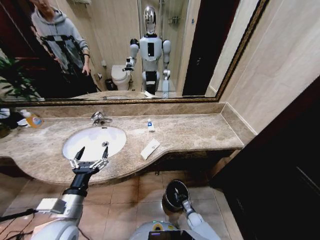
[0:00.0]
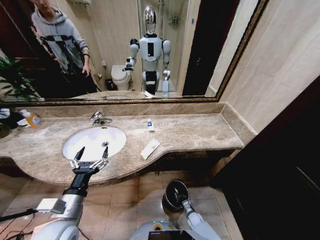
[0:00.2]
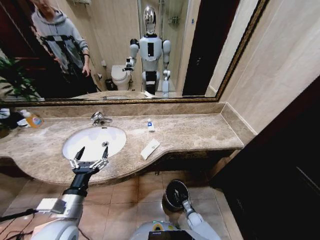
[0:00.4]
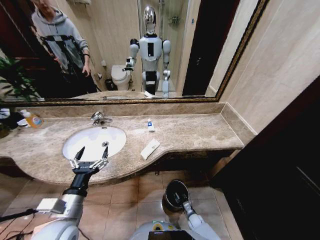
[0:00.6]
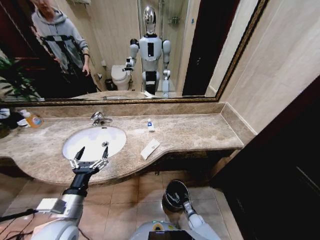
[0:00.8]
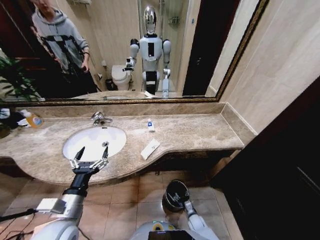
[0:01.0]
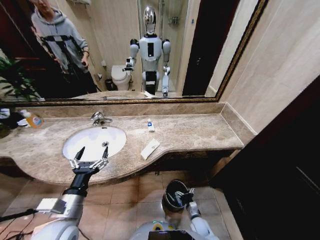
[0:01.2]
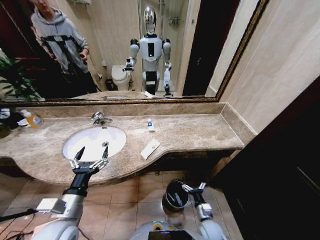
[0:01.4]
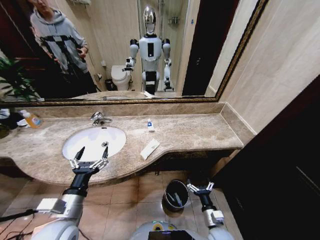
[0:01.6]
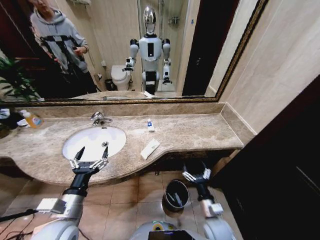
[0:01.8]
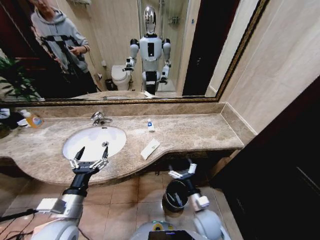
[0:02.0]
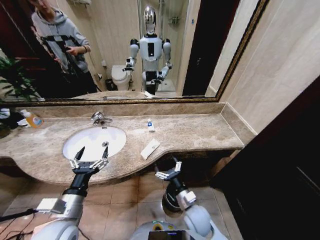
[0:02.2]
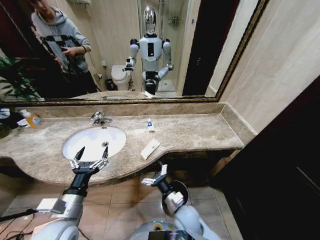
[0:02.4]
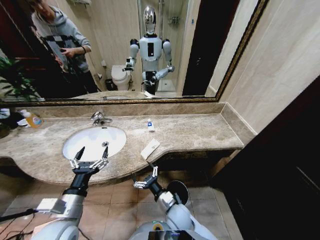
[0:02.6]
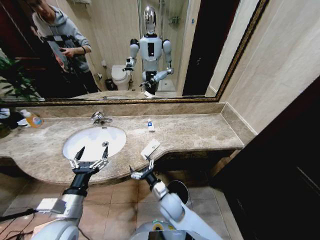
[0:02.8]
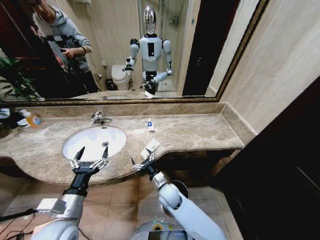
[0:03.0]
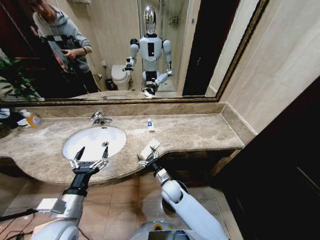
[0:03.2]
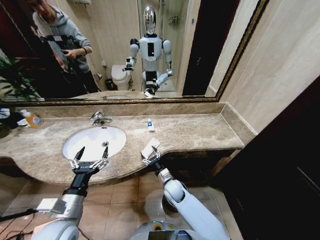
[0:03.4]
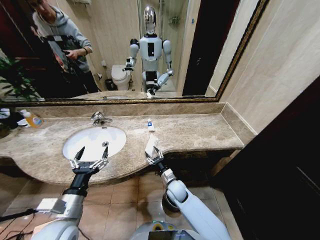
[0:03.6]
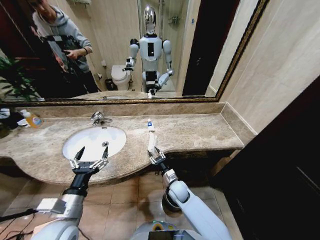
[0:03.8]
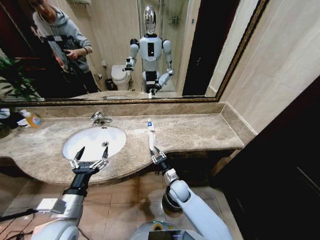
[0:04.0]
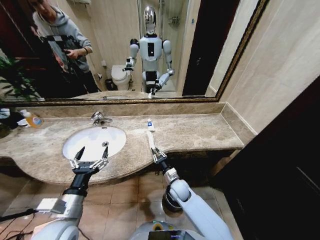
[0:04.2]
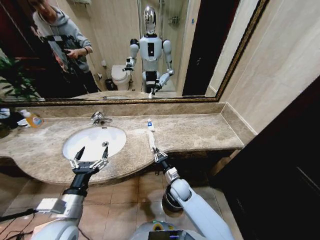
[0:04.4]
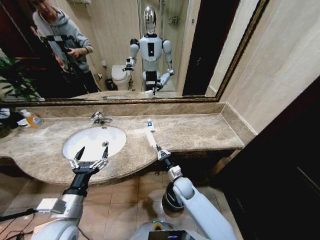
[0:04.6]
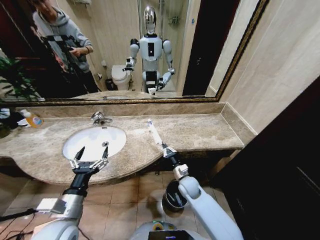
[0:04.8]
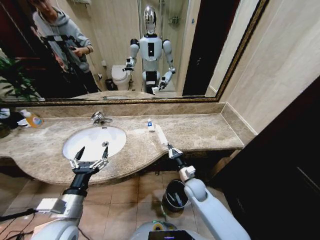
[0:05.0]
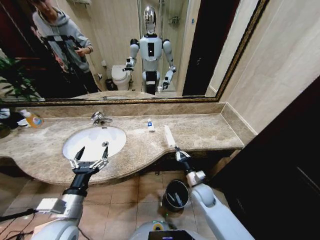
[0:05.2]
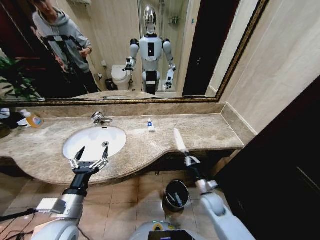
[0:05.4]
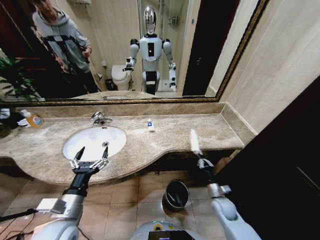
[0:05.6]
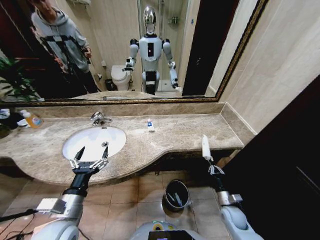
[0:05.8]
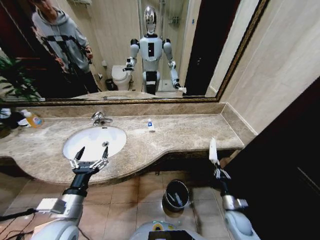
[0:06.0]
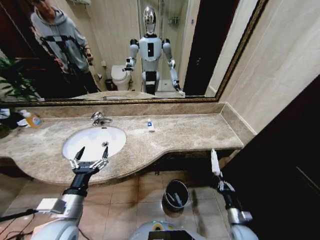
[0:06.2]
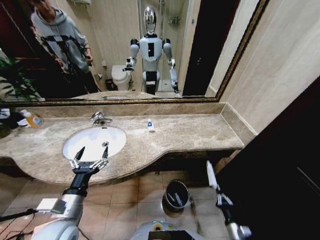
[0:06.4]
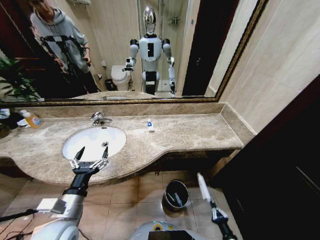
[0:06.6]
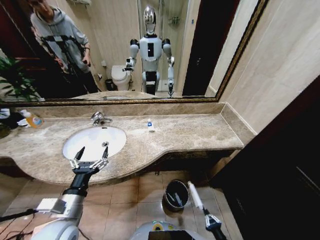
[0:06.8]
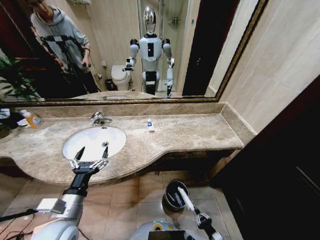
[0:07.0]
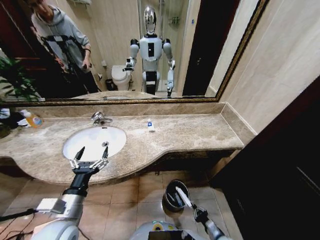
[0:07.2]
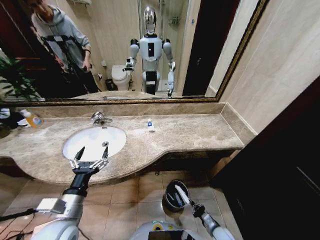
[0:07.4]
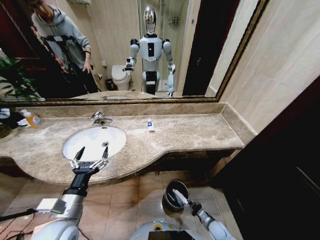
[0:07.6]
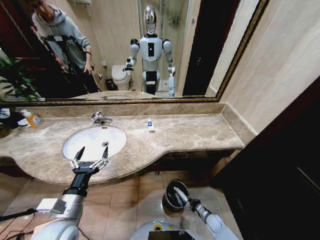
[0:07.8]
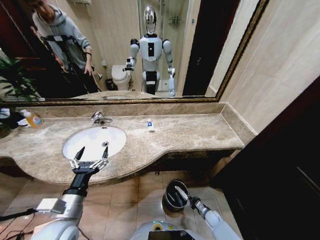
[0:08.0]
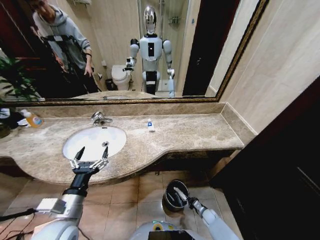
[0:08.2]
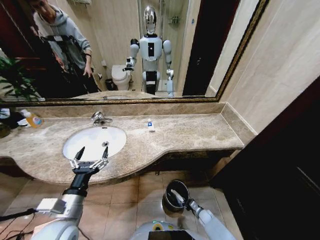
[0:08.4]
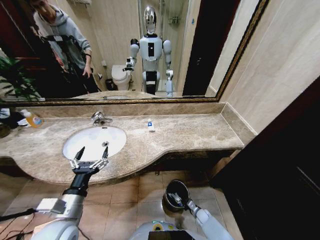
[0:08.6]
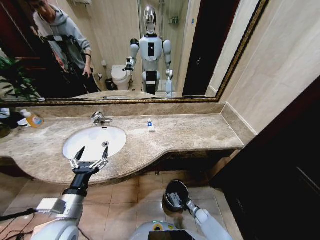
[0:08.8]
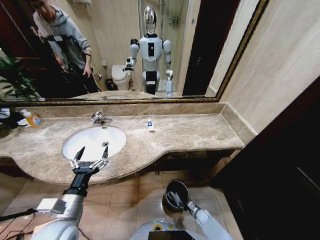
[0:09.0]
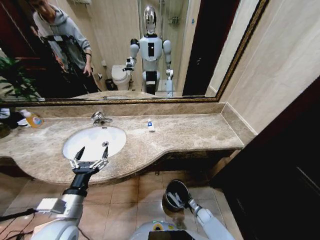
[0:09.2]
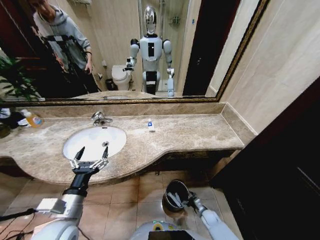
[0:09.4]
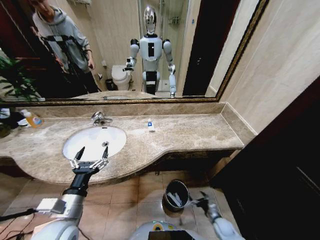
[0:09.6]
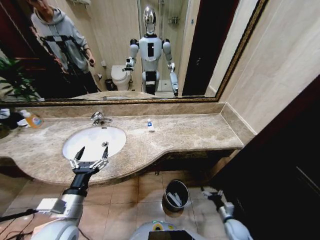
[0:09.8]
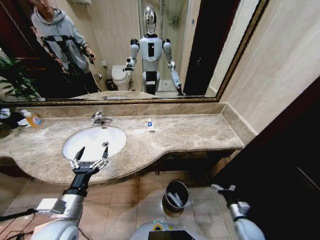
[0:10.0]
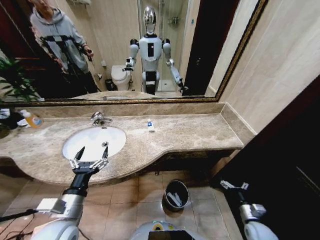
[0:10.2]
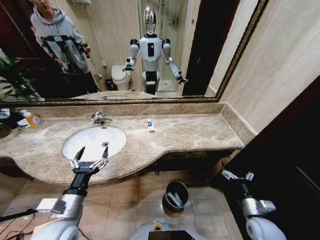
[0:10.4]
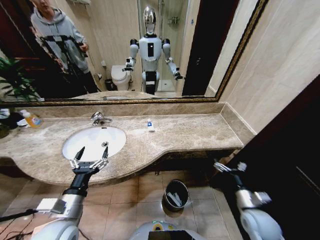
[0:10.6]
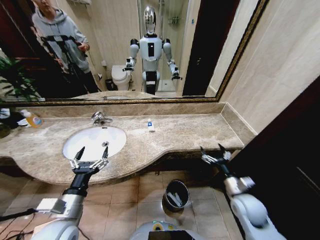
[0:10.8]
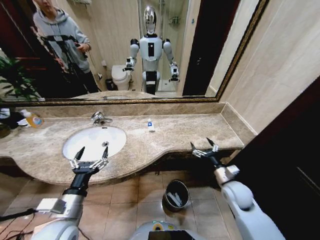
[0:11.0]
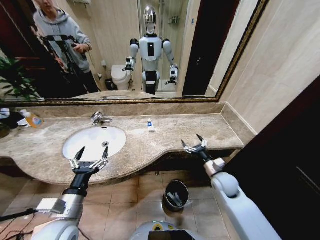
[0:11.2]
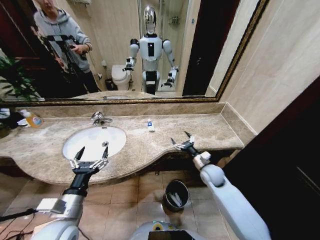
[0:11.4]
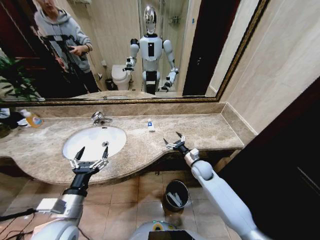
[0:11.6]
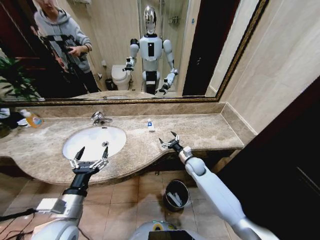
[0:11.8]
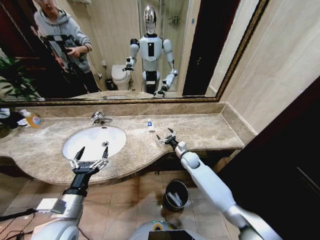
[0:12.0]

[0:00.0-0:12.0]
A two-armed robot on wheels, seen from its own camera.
Task of the whole recording: Pick up the trash from the sink and place it in the trash bin.
0:00.0 to 0:01.6: The right gripper moves upward, roughly 25 cm, and opens.
0:01.6 to 0:03.0: The right gripper is displaced to the left and forward by about 25 cm.
0:03.0 to 0:04.4: The right gripper moves to the right, roughly 5 cm, and closes up.
0:04.4 to 0:06.0: The right gripper moves to the right and backward, some 30 cm.
0:06.0 to 0:07.6: The right gripper heads downward, covering approximately 15 cm, and travels backward and back again, approximately 15 cm each way.
0:07.6 to 0:09.0: The right gripper shifts some 10 cm downward and forward, and opens up.
0:09.0 to 0:10.4: The right gripper moves upward, roughly 30 cm, and opens up.
0:10.4 to 0:12.0: The right gripper is displaced forward and to the left by some 35 cm.

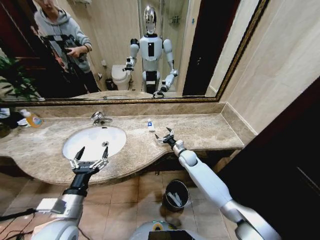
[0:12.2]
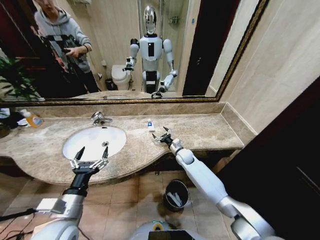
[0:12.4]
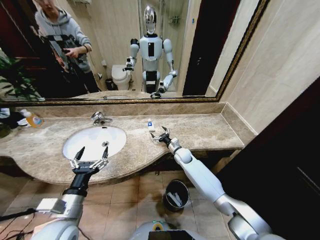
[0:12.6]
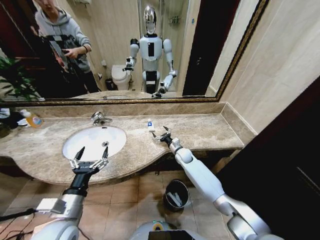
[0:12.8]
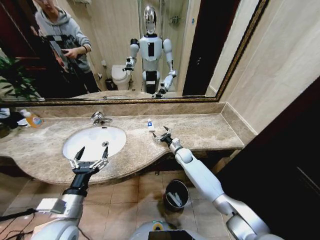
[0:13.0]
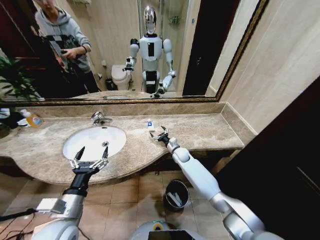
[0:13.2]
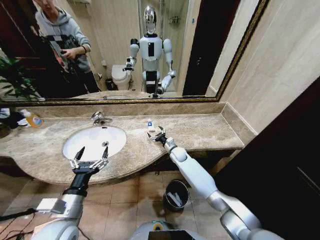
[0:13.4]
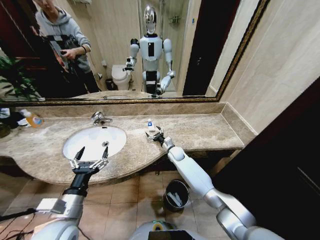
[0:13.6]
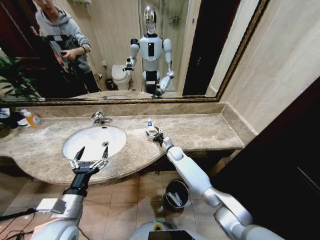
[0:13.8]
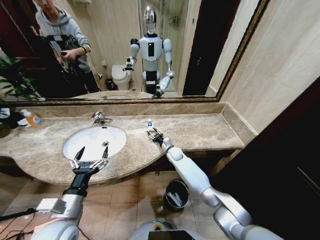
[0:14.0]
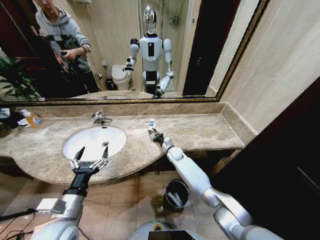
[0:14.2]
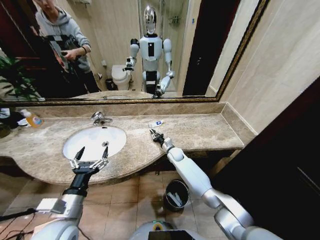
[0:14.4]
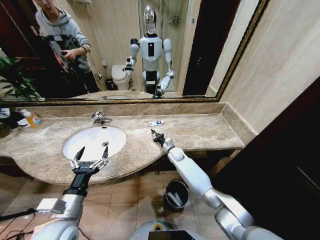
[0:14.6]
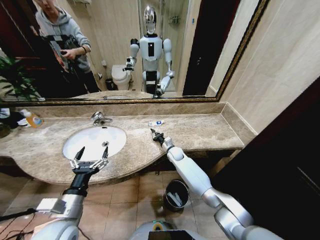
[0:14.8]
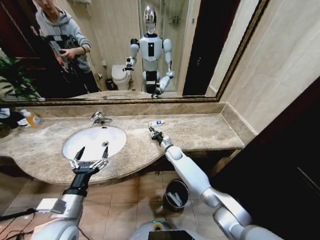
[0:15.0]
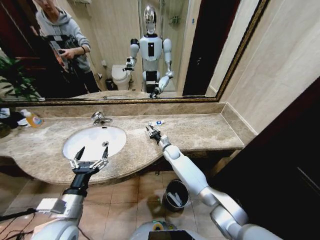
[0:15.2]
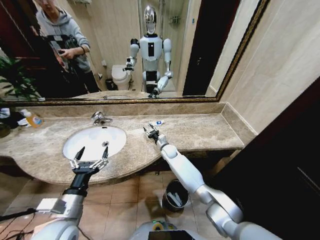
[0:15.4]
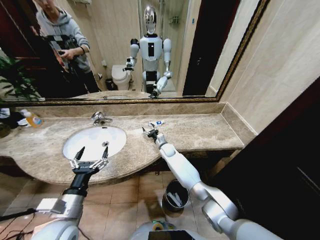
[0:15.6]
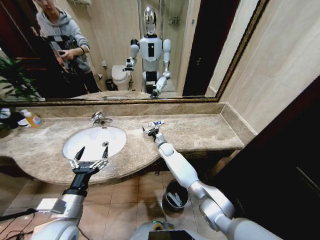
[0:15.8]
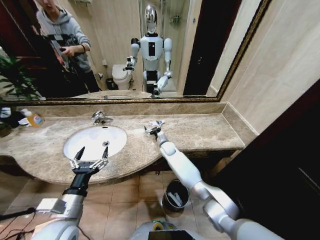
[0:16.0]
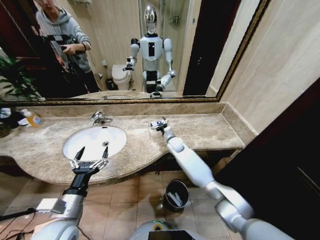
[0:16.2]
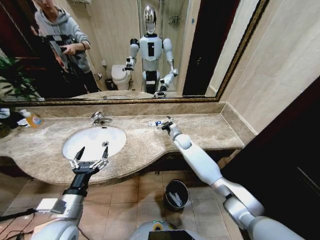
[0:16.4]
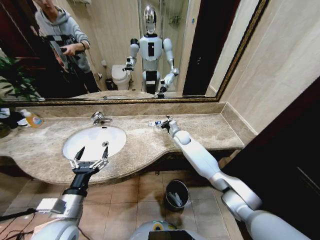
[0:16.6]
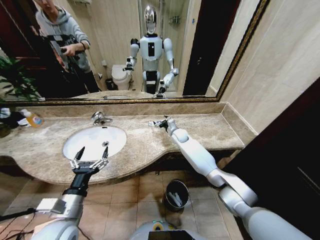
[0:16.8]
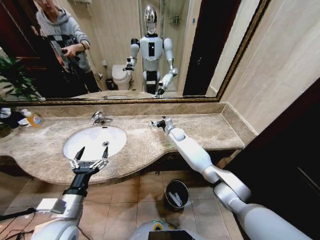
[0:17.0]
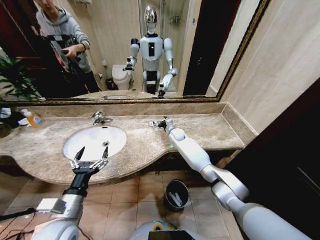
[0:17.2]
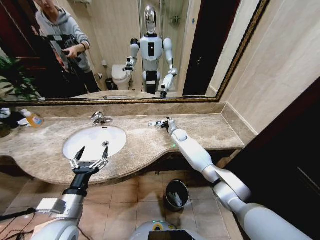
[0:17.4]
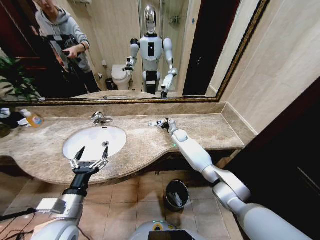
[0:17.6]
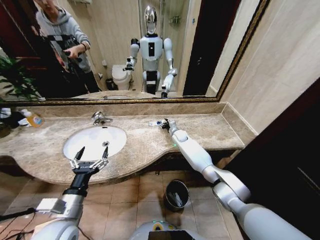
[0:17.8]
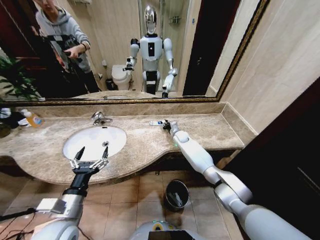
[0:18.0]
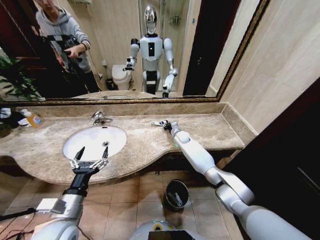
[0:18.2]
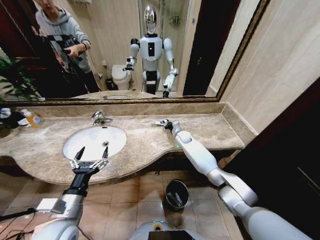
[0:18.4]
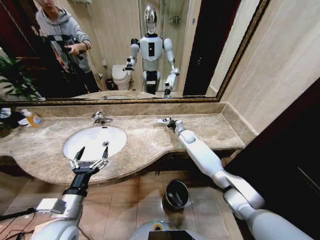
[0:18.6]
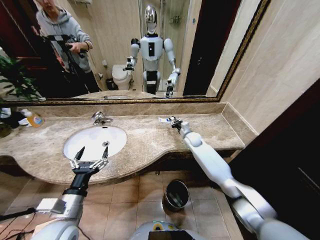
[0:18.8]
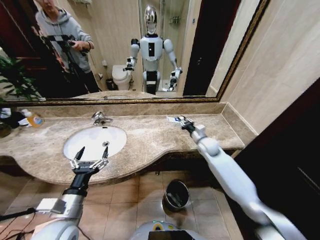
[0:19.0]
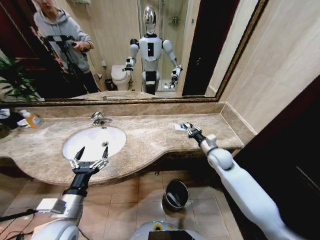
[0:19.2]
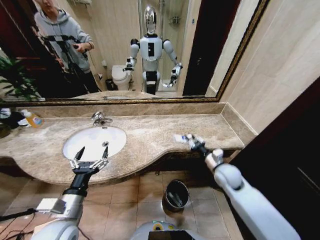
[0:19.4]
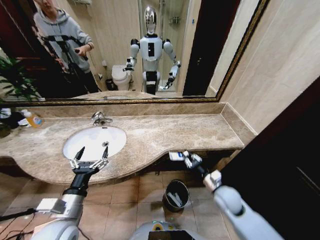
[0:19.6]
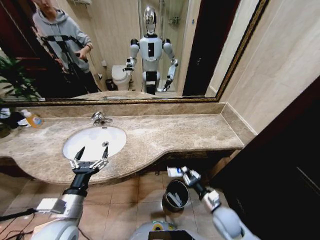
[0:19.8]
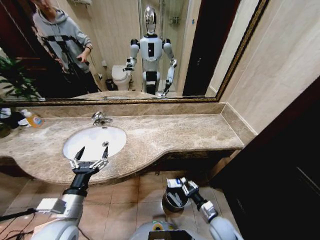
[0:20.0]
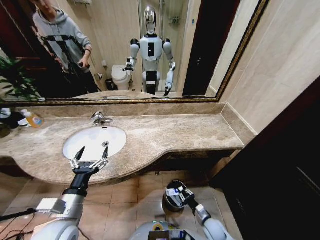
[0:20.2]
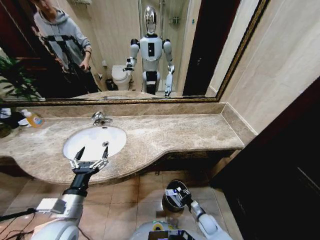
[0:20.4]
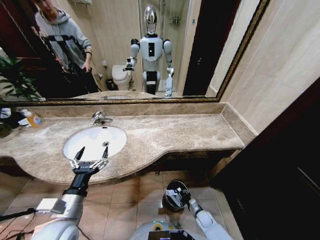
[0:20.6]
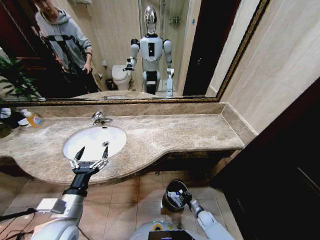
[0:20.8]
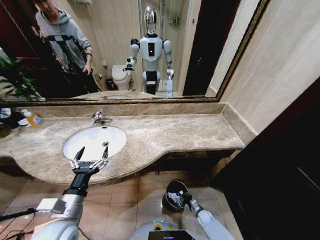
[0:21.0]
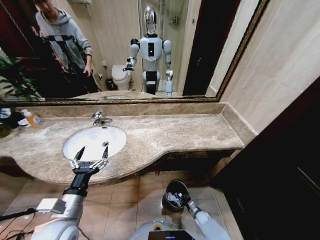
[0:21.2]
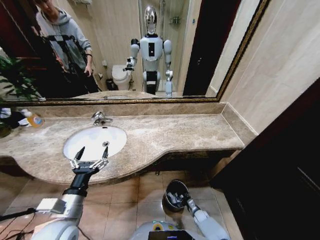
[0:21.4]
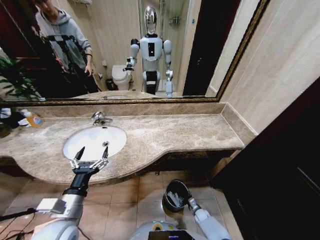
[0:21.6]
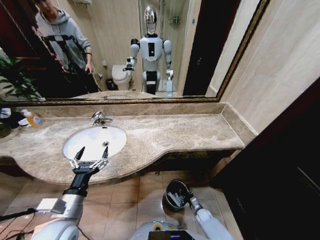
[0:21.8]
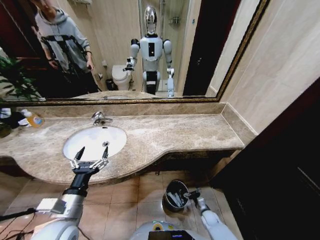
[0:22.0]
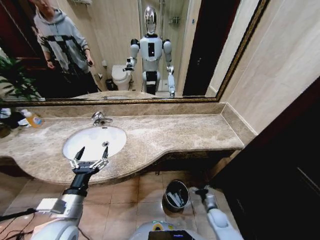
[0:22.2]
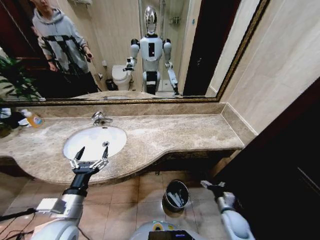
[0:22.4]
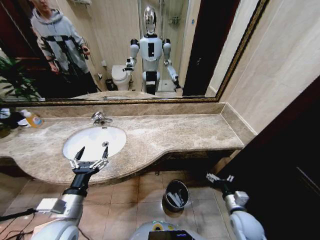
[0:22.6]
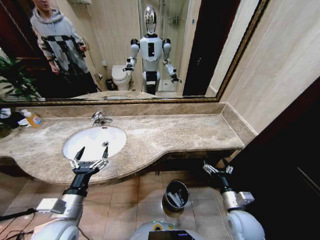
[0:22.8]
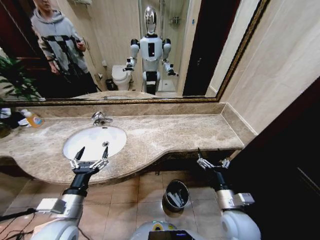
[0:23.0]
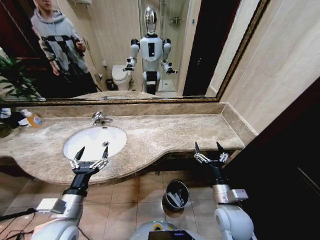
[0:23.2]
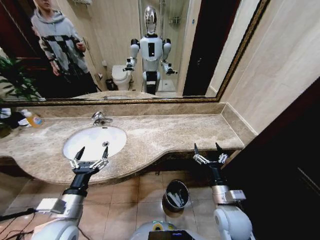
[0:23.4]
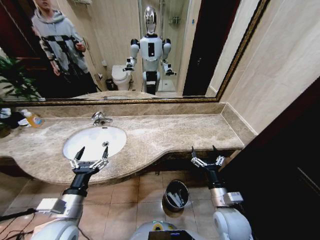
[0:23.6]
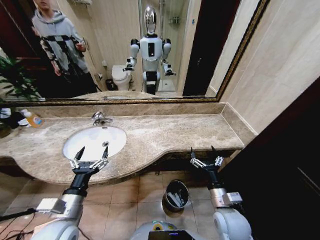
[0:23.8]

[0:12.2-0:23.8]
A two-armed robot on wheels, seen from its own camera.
Task of the whole recording: Pick up the trash from the sink and place it in the trash bin.
0:12.2 to 0:13.6: The right gripper travels to the left by approximately 5 cm.
0:13.6 to 0:15.0: The right gripper closes its fingers.
0:15.0 to 0:16.6: The right gripper shifts some 10 cm upward and forward, and opens.
0:16.6 to 0:18.0: The right gripper closes.
0:18.0 to 0:19.4: The right gripper goes approximately 30 cm backward and to the right.
0:19.4 to 0:21.0: The right gripper goes roughly 40 cm downward.
0:21.0 to 0:22.4: The right gripper heads upward, covering approximately 20 cm, and opens.
0:22.4 to 0:23.8: The right gripper shifts some 20 cm upward and to the left.
